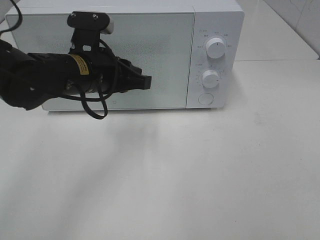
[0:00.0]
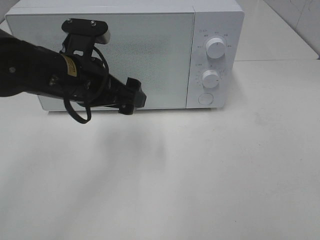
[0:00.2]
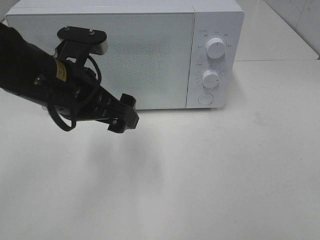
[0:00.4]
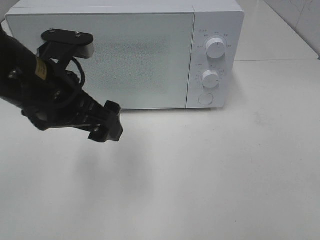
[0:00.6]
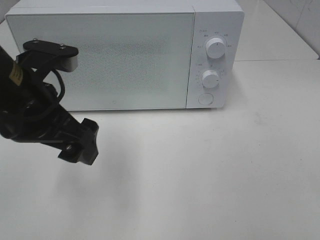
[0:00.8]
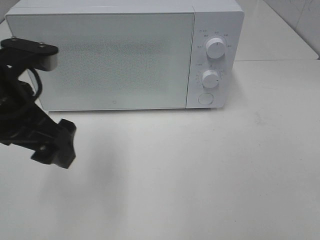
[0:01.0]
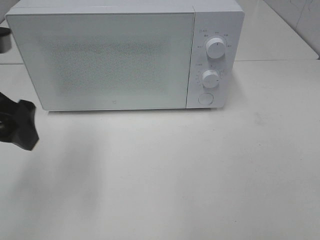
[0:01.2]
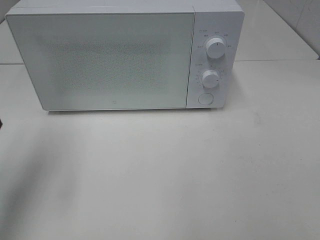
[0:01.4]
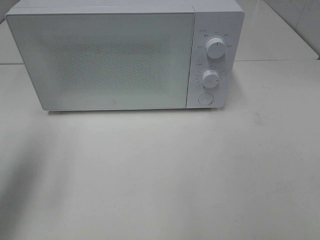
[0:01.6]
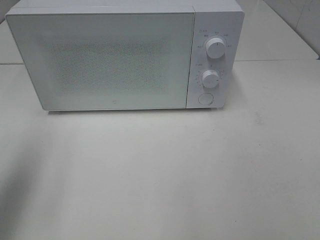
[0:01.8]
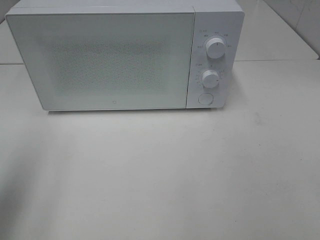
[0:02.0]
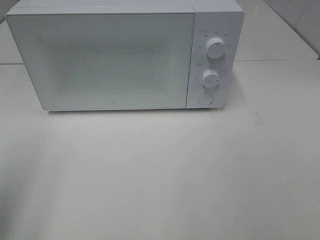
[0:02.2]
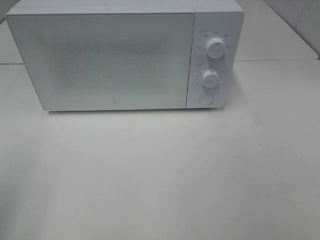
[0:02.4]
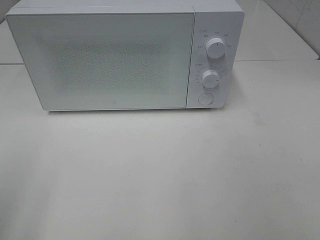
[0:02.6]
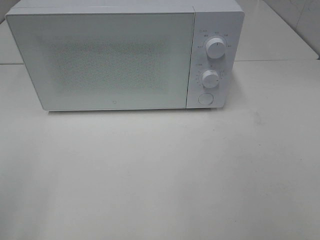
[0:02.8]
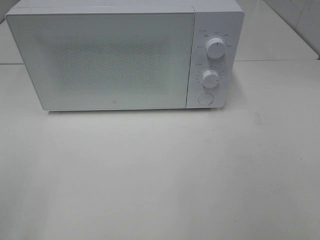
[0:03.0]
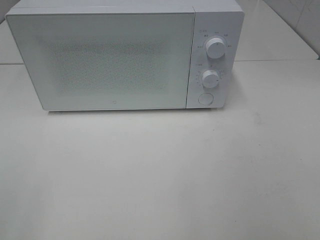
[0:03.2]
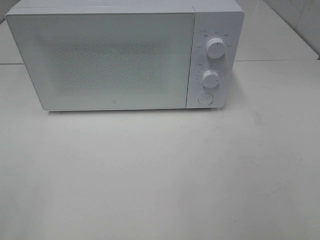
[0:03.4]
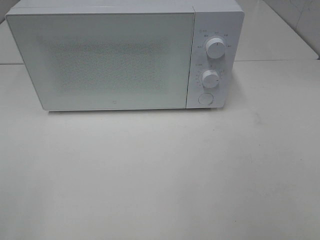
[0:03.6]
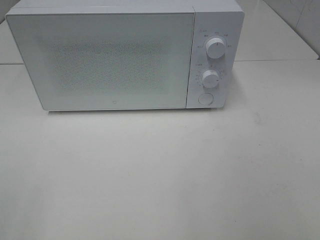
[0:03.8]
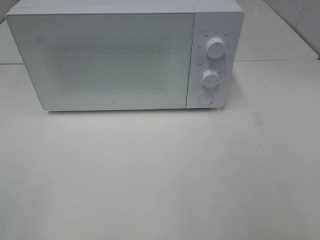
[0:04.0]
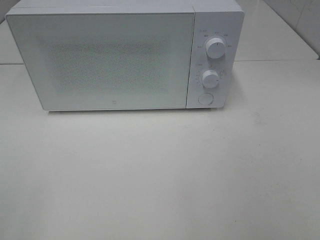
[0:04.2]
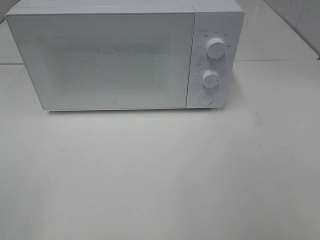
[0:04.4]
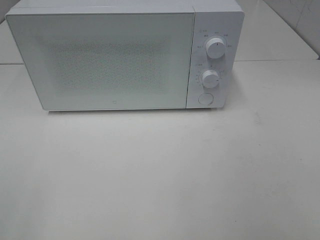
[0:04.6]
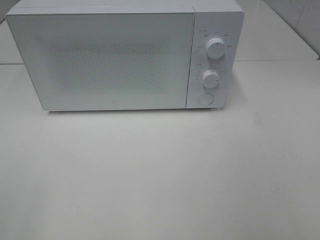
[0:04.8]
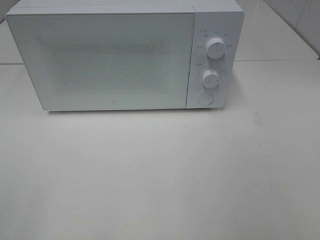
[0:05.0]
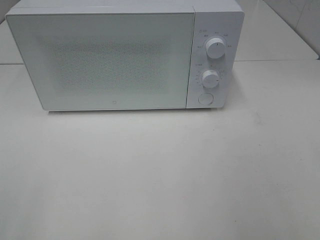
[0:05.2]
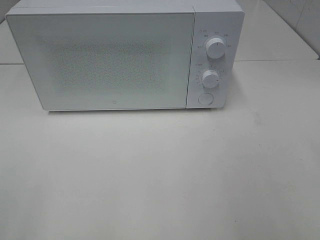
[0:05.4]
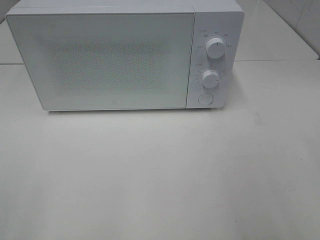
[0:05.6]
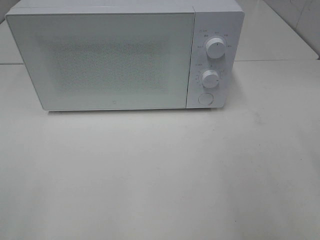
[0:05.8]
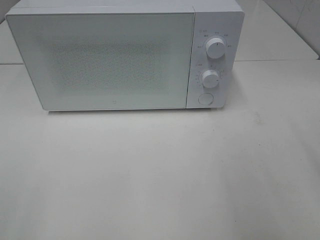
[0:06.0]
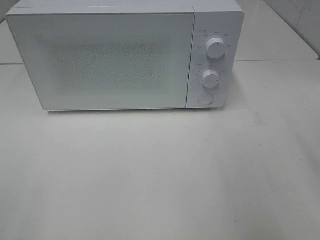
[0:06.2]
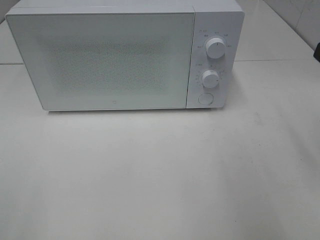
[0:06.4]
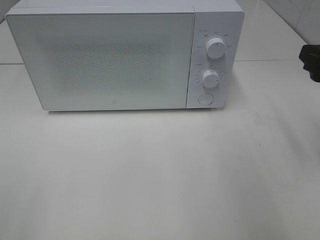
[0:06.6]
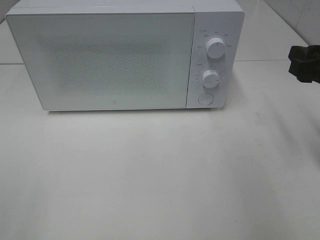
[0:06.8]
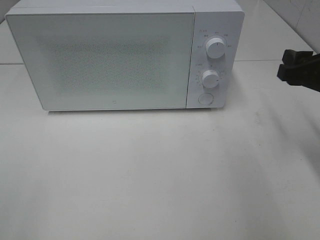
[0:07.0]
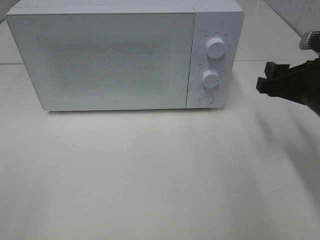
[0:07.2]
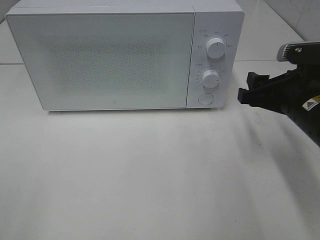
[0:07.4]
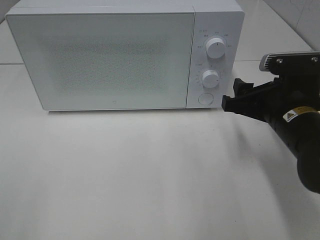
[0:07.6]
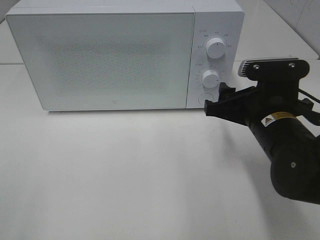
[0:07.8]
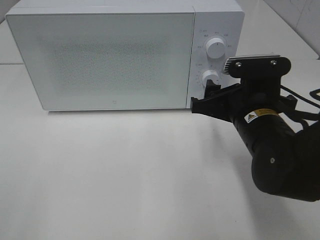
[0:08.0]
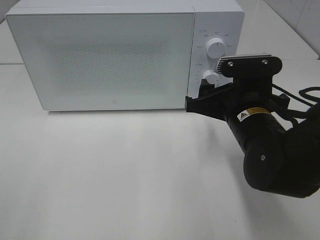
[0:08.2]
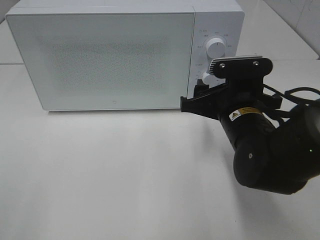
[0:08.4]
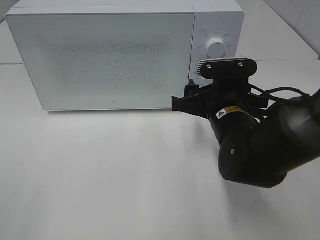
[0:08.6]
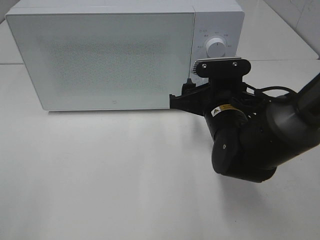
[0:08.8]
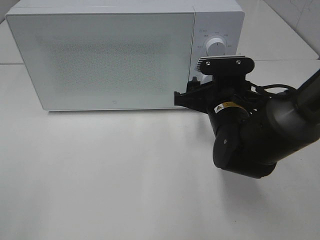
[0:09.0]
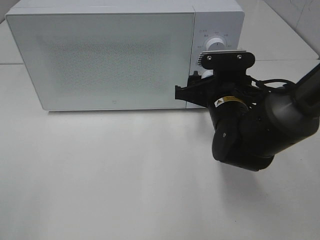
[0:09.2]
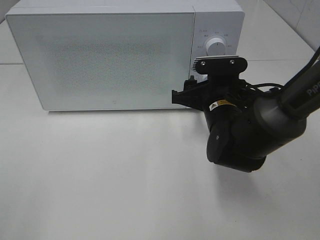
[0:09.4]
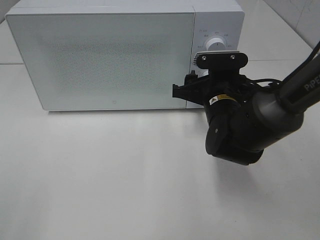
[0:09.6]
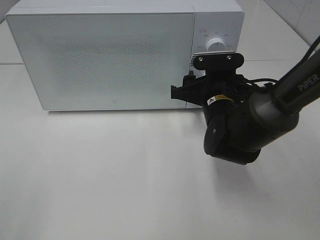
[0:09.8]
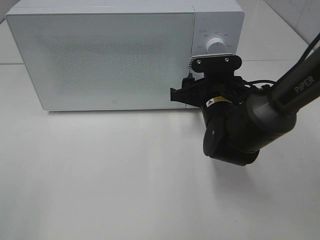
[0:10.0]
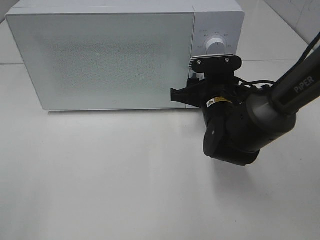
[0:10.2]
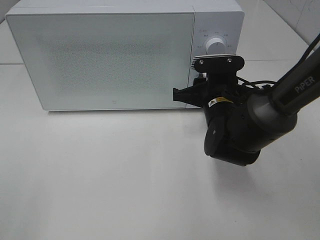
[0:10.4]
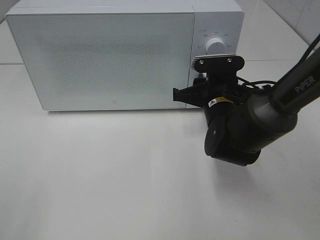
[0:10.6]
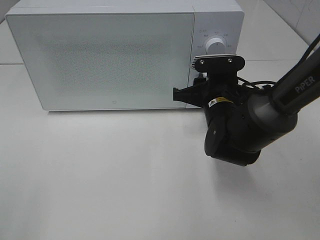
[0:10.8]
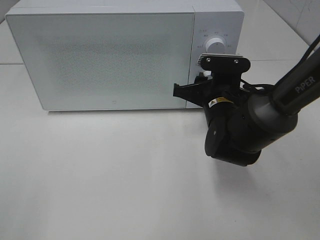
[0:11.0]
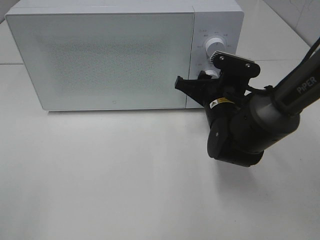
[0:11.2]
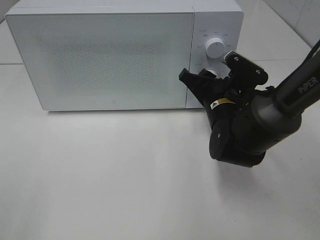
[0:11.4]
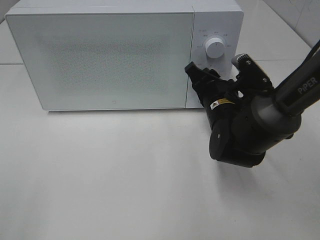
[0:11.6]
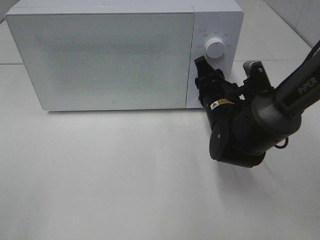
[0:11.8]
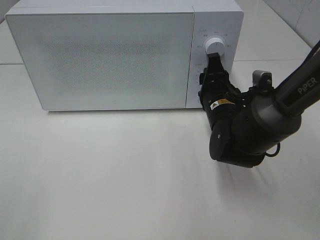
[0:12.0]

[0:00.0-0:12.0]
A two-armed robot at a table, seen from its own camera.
Task of the whole recording: Heat the burger.
0:00.0 to 0:01.6: The left gripper goes approximately 25 cm to the left, upward and backward, and opens its fingers.
0:01.6 to 0:03.0: The left gripper moves backward, roughly 20 cm.
0:06.0 to 0:07.6: The right gripper shifts approximately 20 cm downward, forward and to the left.
0:07.6 to 0:09.0: The right gripper travels to the left and forward by roughly 10 cm.
0:09.0 to 0:10.4: The grippers stay close to where they were, moving slightly.

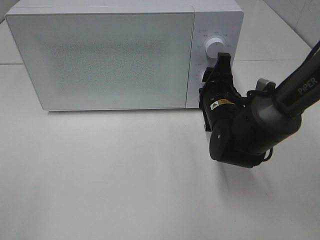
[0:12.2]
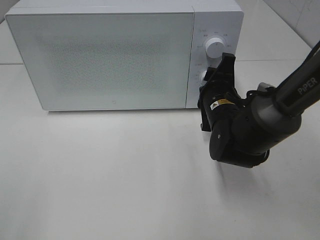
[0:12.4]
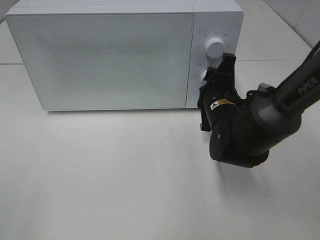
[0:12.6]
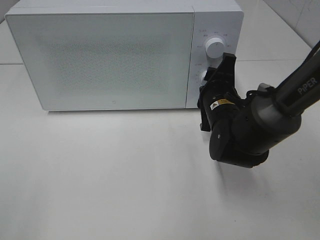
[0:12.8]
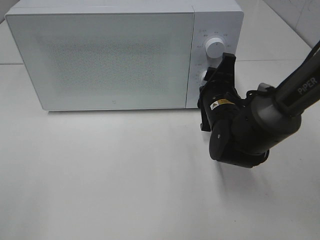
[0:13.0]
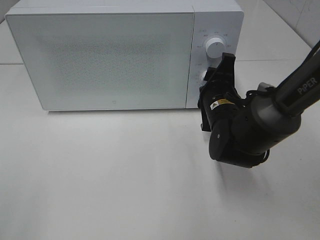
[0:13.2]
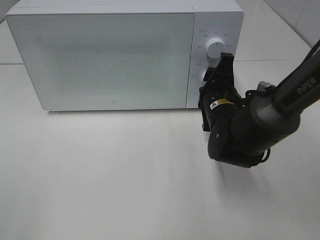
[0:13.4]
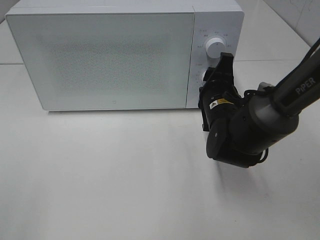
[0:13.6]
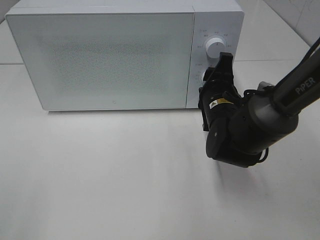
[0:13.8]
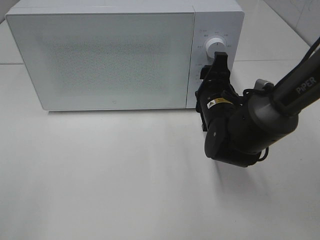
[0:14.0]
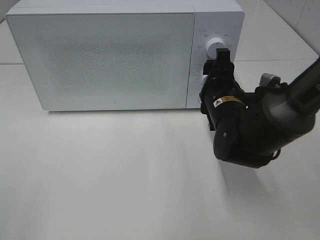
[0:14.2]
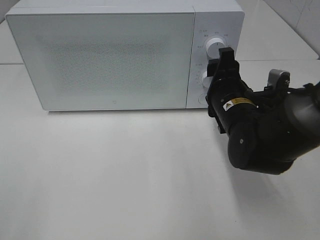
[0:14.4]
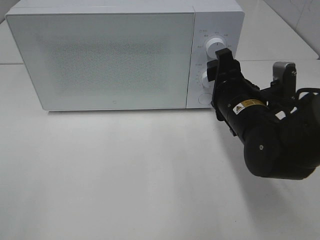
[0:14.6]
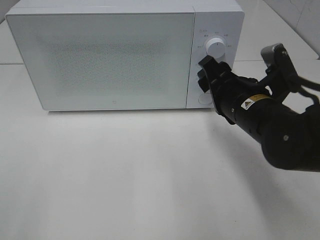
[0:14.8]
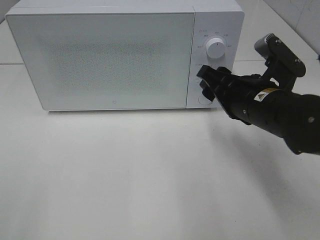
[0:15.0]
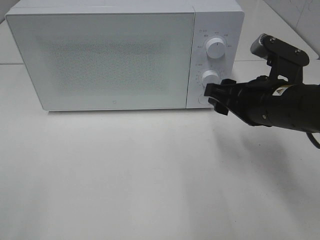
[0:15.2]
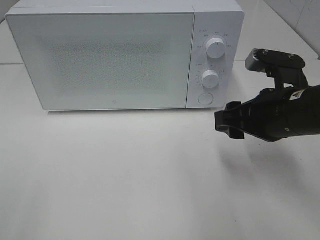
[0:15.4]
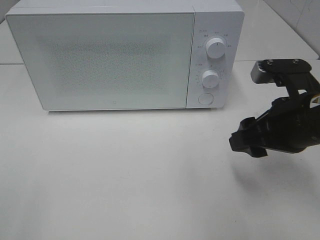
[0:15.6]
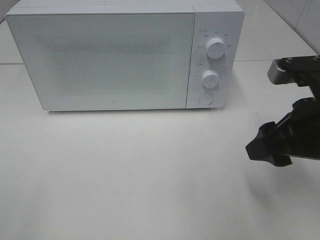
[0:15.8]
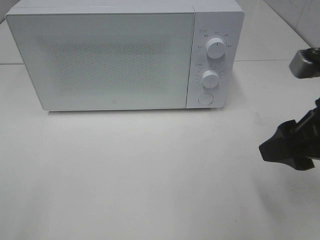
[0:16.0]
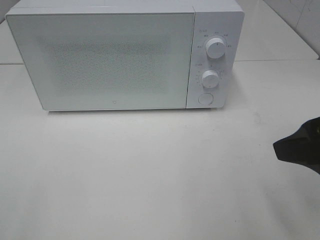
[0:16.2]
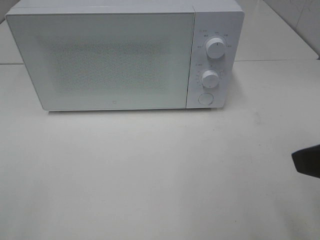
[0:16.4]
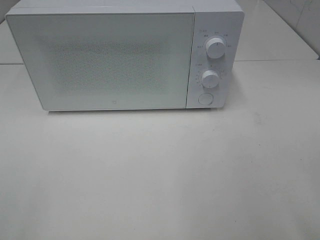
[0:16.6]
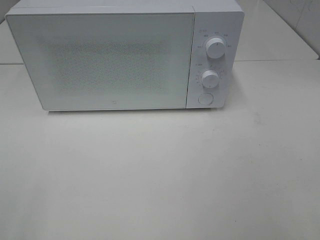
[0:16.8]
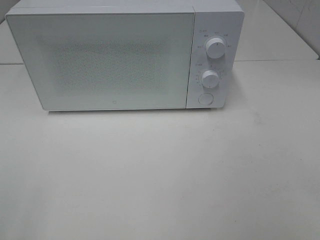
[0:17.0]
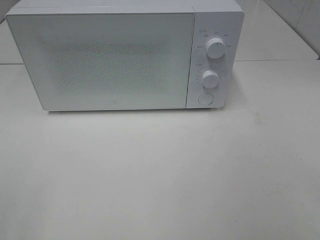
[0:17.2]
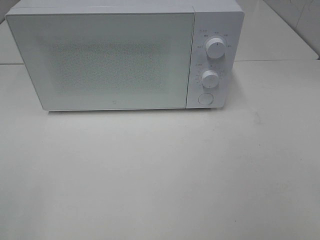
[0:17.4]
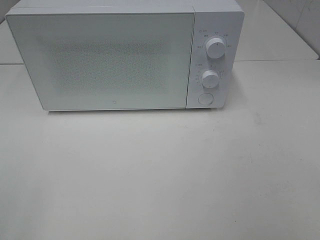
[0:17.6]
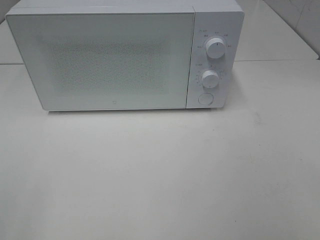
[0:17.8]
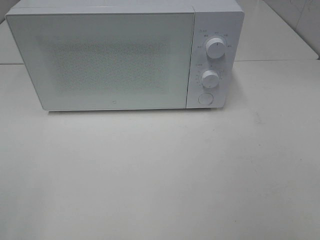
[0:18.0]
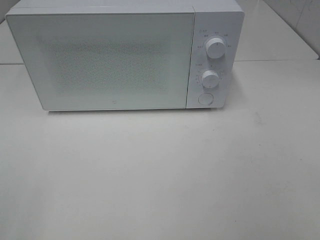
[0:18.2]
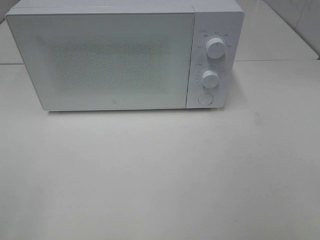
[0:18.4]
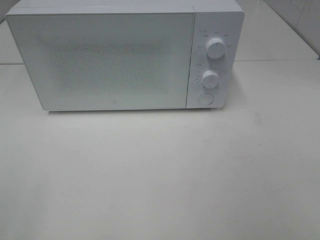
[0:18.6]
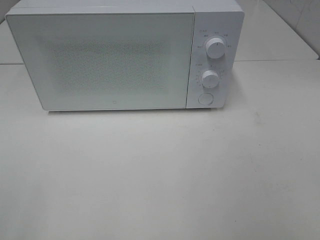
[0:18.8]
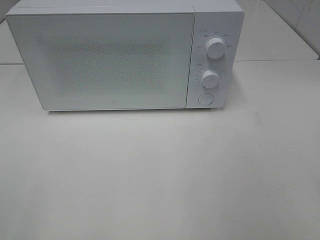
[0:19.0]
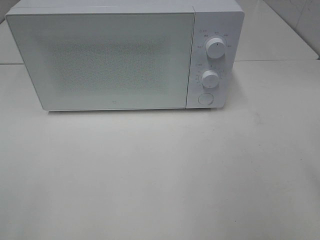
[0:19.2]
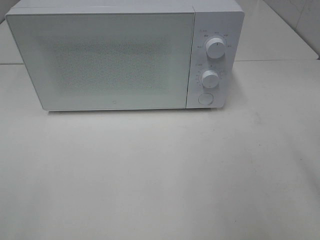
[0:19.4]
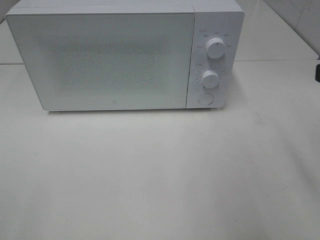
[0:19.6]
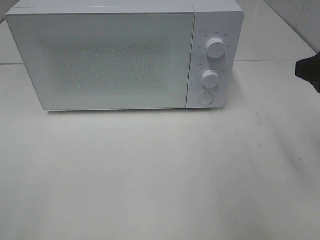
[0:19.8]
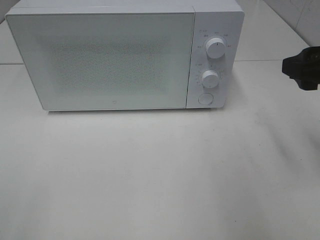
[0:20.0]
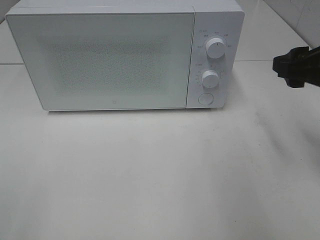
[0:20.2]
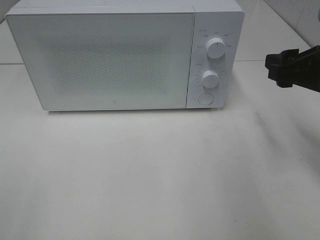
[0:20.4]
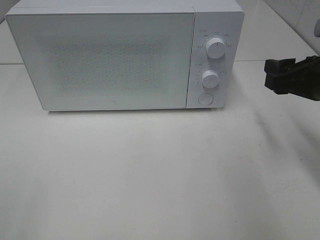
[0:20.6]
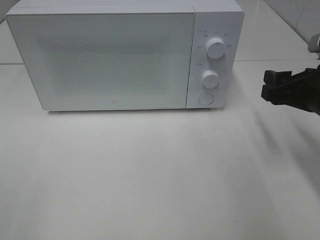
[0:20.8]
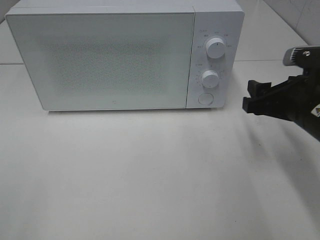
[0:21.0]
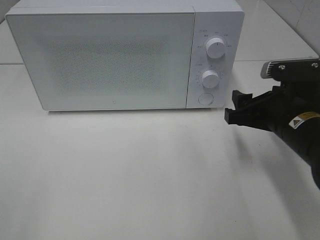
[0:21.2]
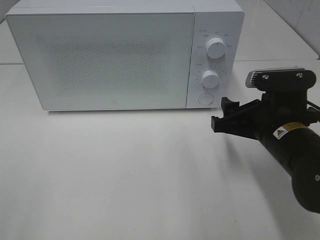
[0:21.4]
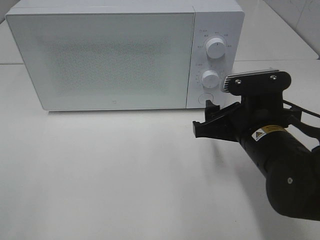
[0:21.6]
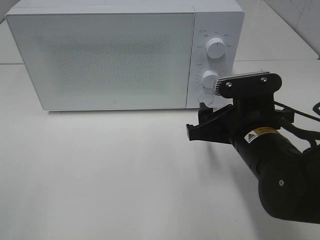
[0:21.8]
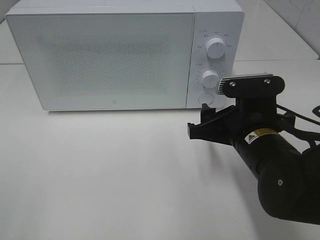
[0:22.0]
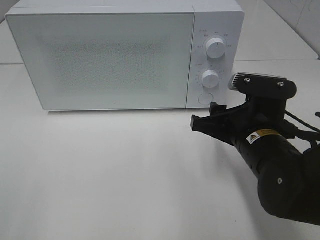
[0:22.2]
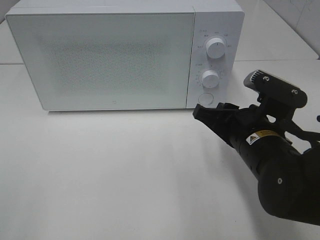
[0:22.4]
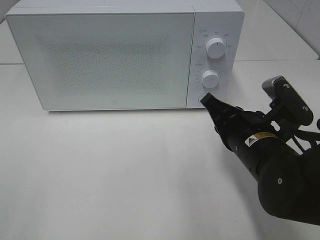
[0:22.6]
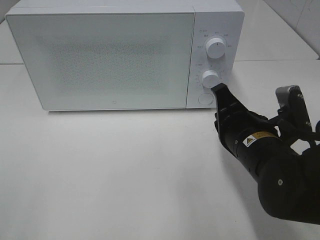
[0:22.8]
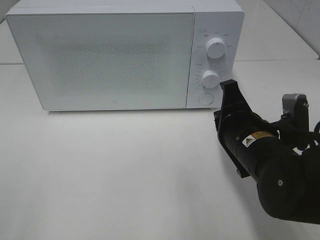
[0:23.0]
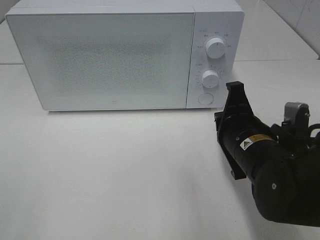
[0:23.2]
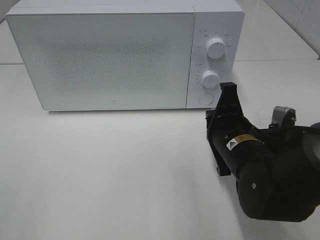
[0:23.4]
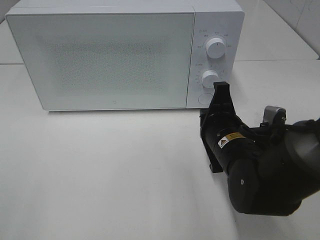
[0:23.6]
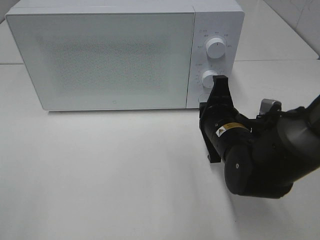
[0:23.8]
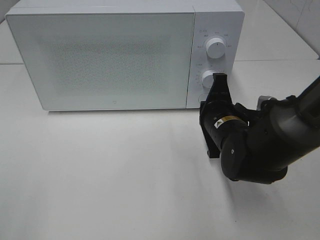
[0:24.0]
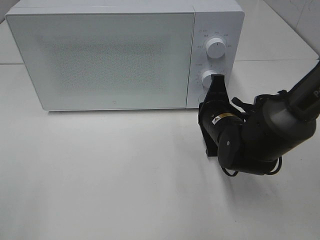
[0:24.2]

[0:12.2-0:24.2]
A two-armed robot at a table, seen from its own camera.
Task of the whole recording: Heat the burger.
0:12.2 to 0:13.8: The grippers move only a little.
0:13.8 to 0:15.2: The right gripper heads backward, upward and to the right, covering approximately 10 cm.
0:15.2 to 0:16.6: The right gripper shifts some 20 cm backward, upward and to the right.
0:18.2 to 0:19.8: The right gripper heads forward, covering some 20 cm.
0:19.8 to 0:21.2: The right gripper shifts approximately 15 cm downward and to the left.
0:21.2 to 0:22.6: The right gripper goes approximately 5 cm to the left, and closes its fingers.
0:22.6 to 0:24.2: The right gripper is displaced forward by about 10 cm.
